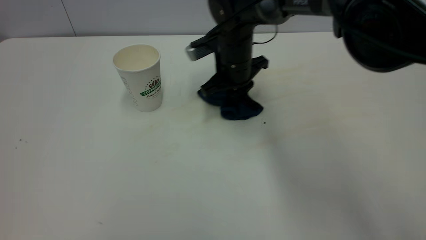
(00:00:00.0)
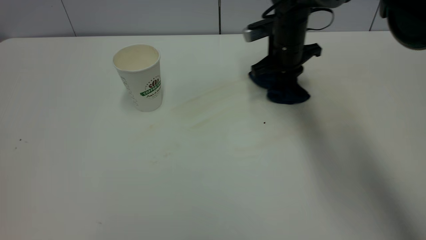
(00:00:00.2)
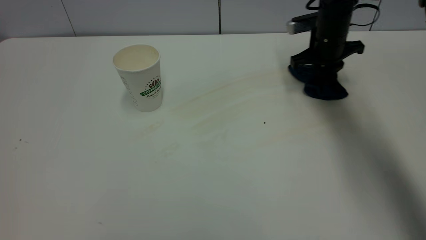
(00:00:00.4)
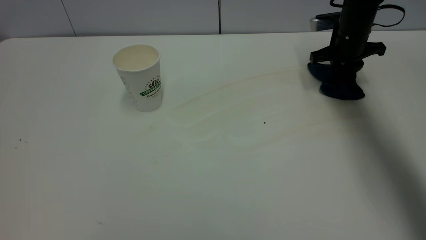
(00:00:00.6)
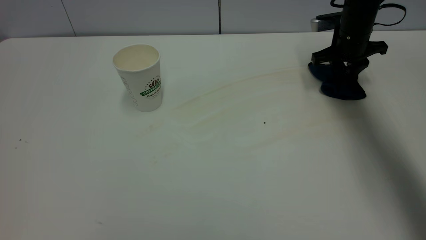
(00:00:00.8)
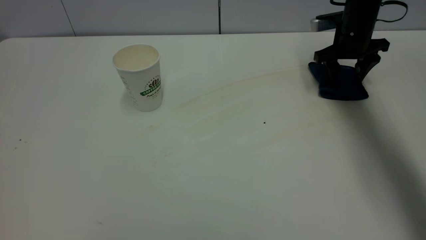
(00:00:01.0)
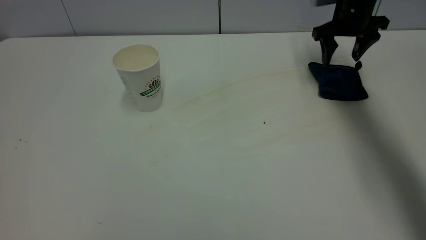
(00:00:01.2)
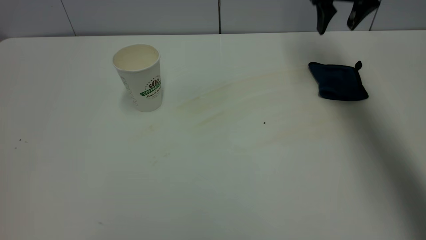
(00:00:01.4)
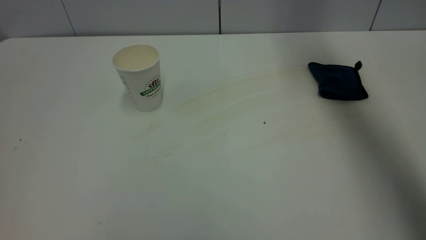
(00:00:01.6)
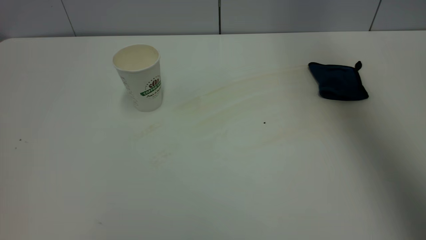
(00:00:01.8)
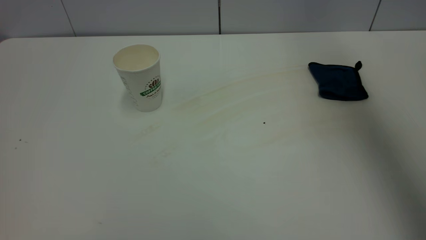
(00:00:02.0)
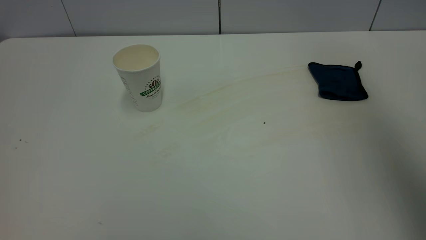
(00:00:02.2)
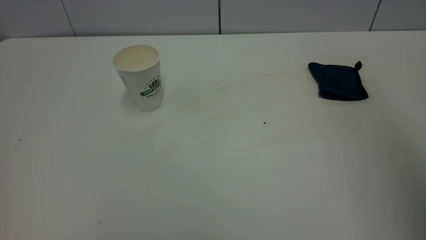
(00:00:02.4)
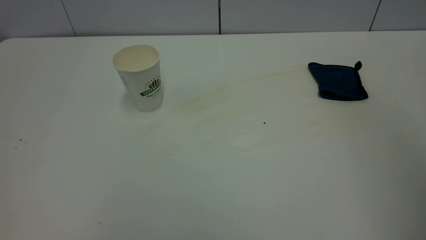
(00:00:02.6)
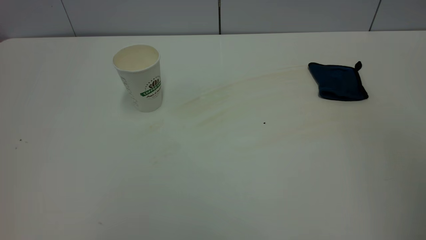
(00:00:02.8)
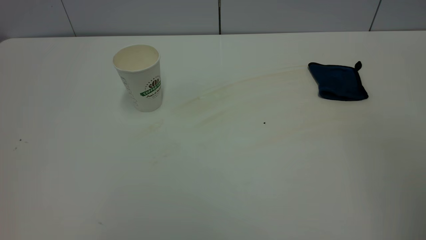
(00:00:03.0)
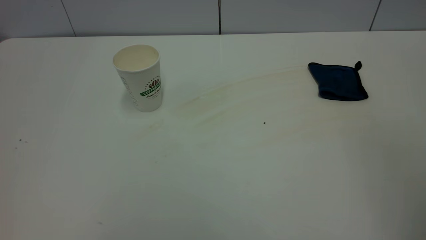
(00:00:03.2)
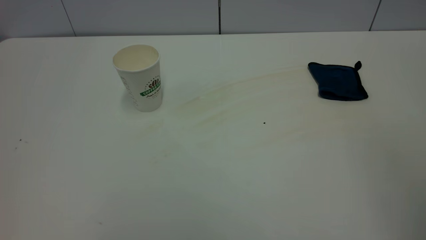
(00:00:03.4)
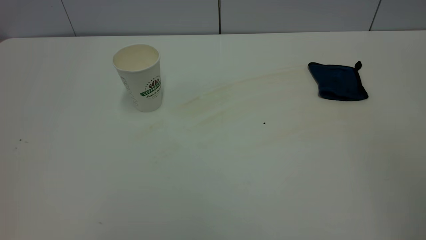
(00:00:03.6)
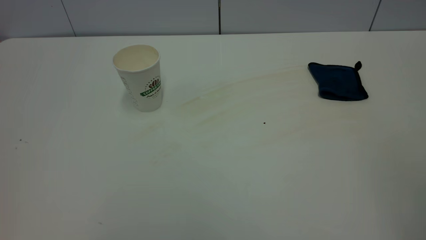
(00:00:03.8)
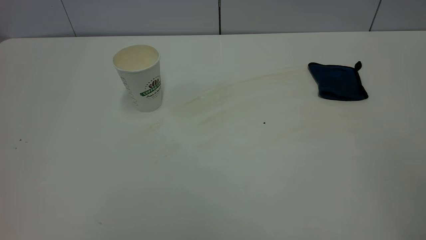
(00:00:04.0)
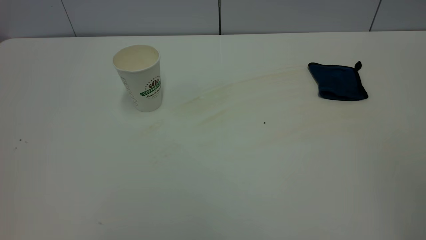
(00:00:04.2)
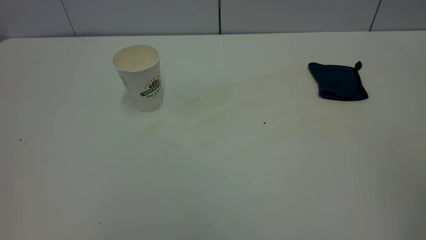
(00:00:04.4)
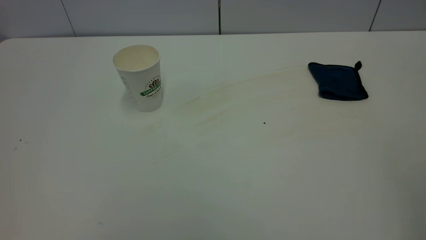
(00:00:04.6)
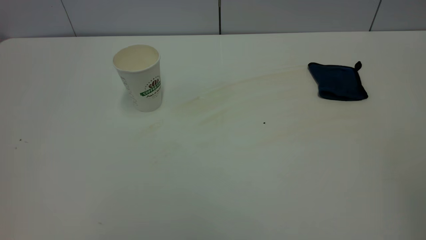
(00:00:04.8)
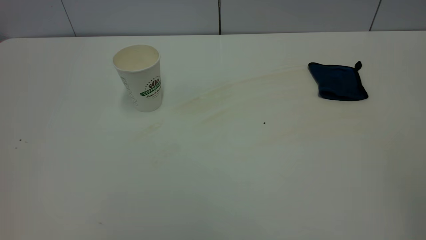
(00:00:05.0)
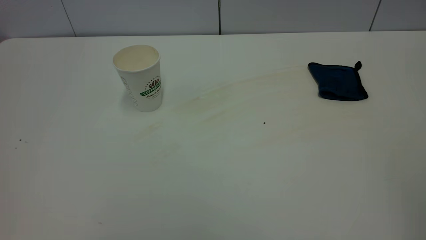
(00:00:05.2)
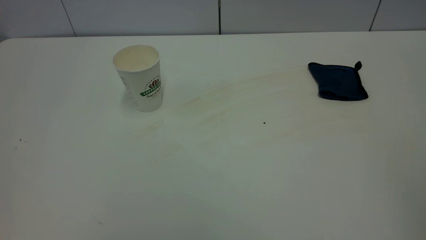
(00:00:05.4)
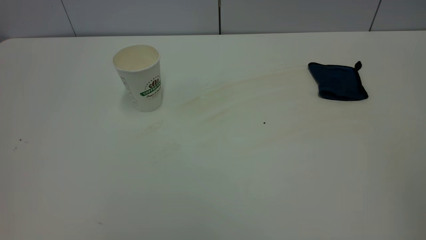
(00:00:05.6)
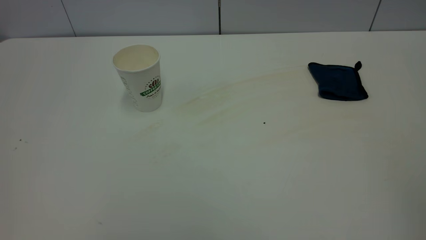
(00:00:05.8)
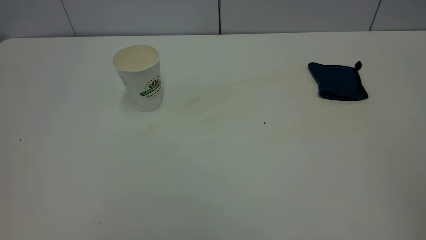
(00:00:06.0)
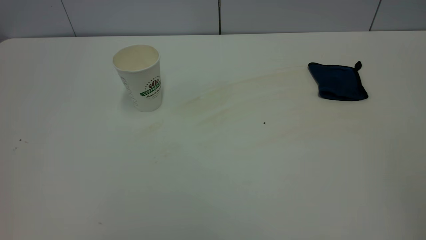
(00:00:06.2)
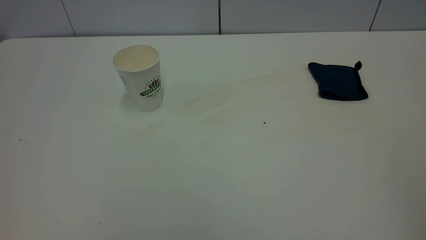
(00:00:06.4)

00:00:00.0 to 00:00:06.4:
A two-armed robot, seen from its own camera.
Task of the whole recording: the left gripper pick up the fallen cup and place it upright, the right gripper grasp the blue rag and wipe the tea stain on the table, the right gripper put the blue rag back in its original position.
00:00:00.0 to 00:00:01.6: The right gripper moves upward and to the right, roughly 30 cm, and opens its fingers.
00:00:01.6 to 00:00:03.2: The right gripper heads backward, covering roughly 40 cm.
00:00:04.8 to 00:00:06.4: Neither gripper changes place.
